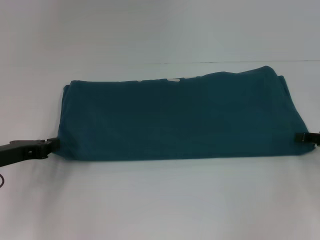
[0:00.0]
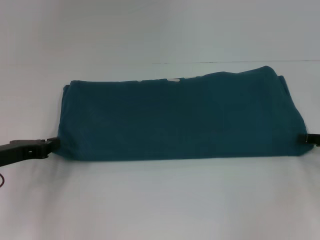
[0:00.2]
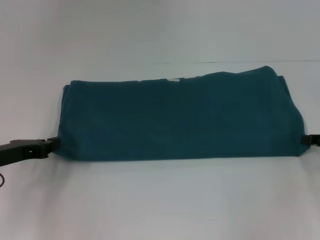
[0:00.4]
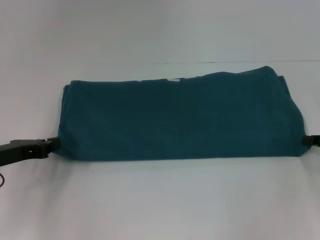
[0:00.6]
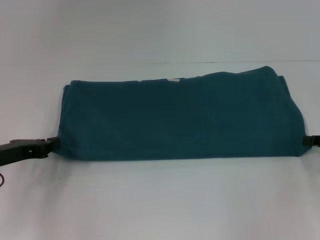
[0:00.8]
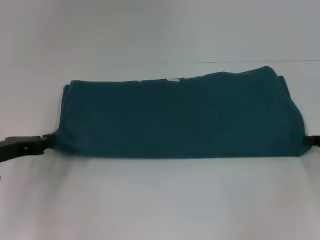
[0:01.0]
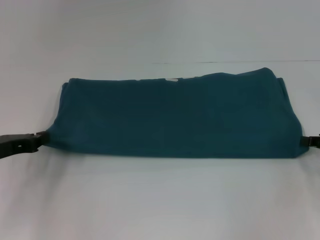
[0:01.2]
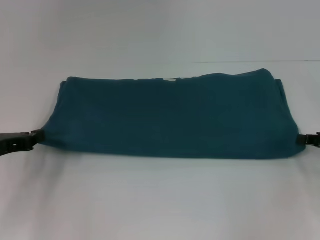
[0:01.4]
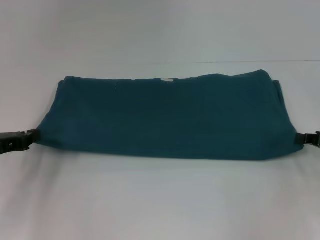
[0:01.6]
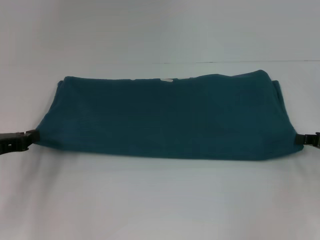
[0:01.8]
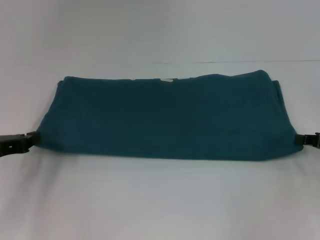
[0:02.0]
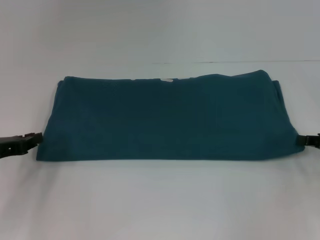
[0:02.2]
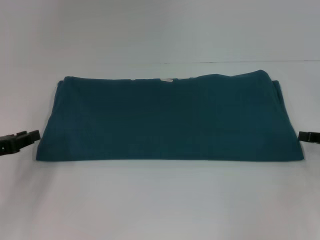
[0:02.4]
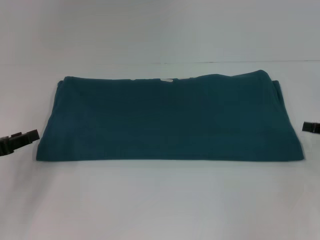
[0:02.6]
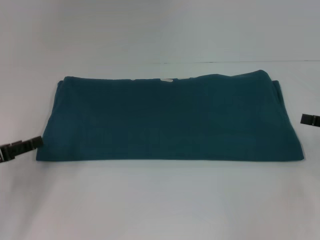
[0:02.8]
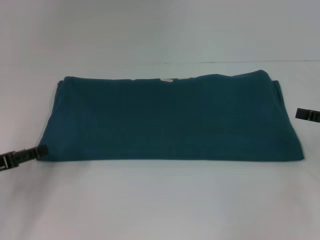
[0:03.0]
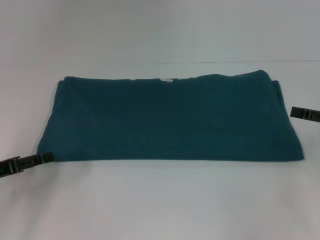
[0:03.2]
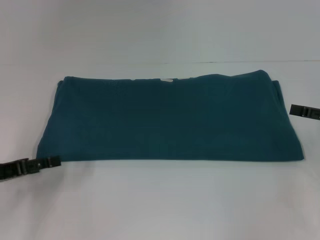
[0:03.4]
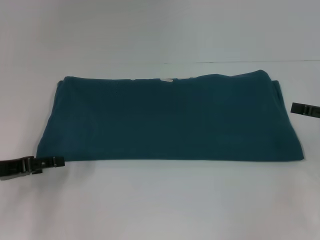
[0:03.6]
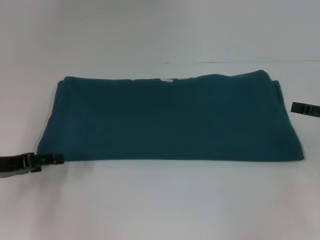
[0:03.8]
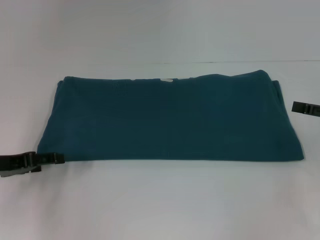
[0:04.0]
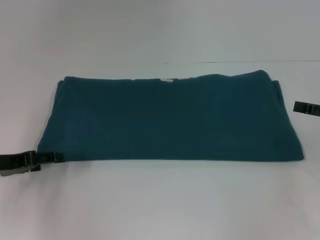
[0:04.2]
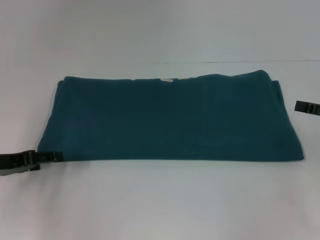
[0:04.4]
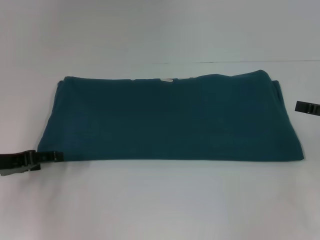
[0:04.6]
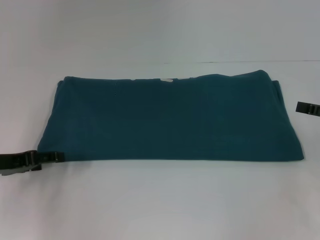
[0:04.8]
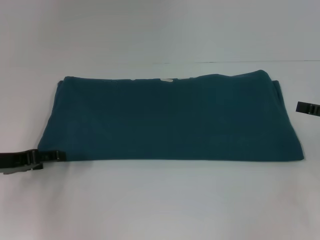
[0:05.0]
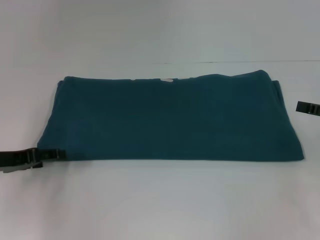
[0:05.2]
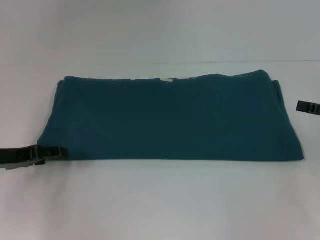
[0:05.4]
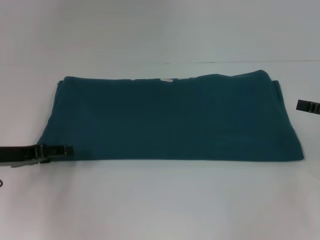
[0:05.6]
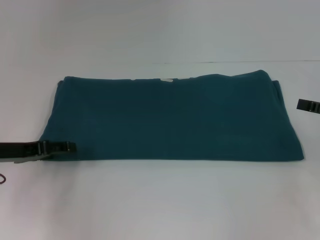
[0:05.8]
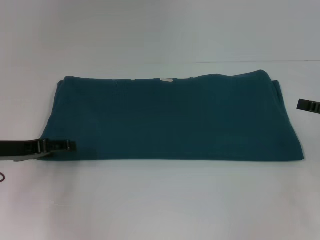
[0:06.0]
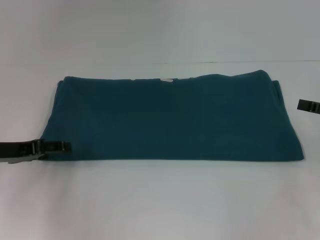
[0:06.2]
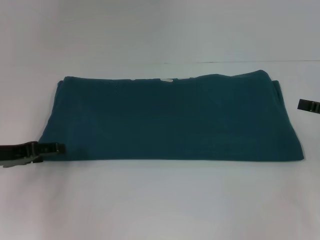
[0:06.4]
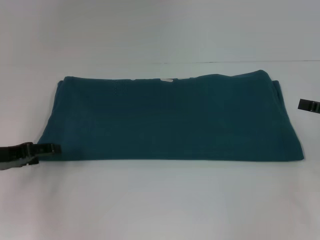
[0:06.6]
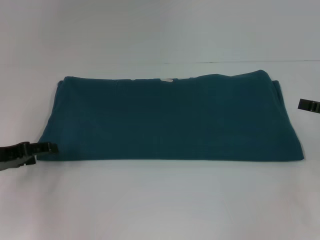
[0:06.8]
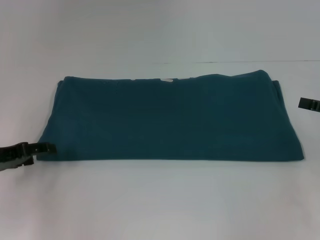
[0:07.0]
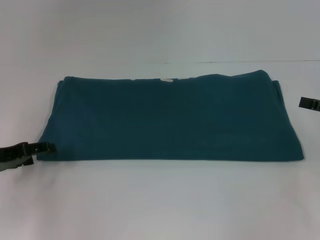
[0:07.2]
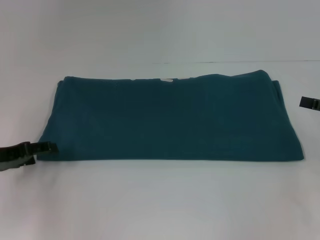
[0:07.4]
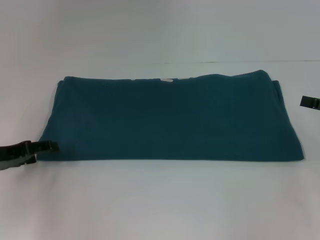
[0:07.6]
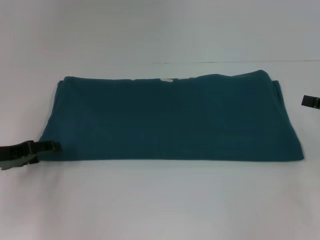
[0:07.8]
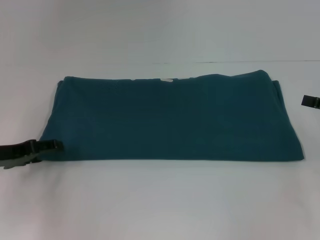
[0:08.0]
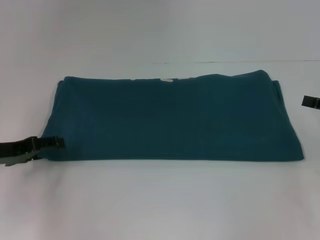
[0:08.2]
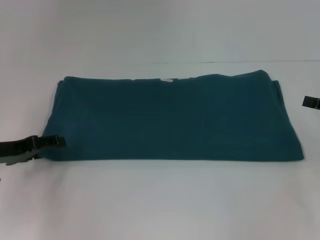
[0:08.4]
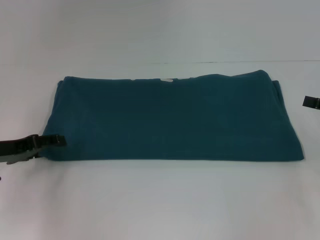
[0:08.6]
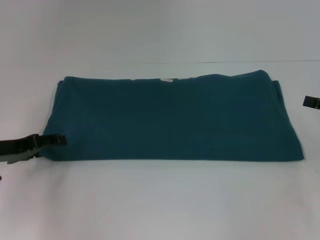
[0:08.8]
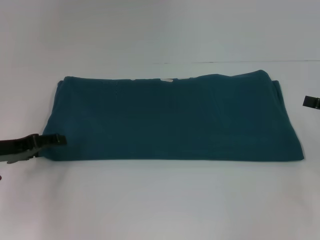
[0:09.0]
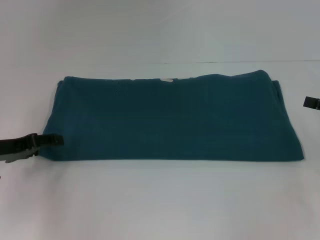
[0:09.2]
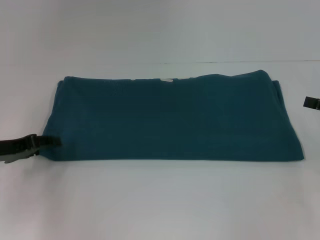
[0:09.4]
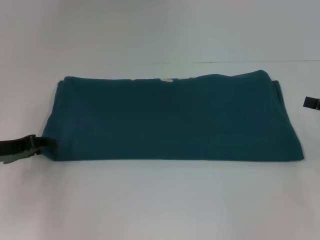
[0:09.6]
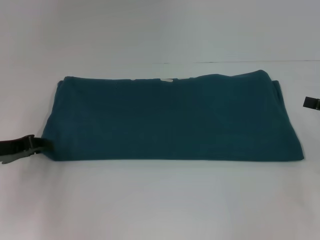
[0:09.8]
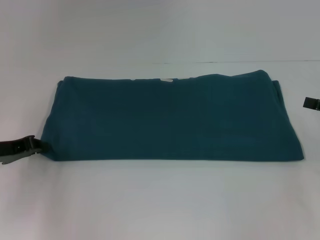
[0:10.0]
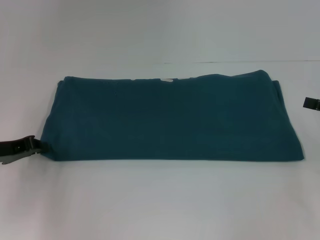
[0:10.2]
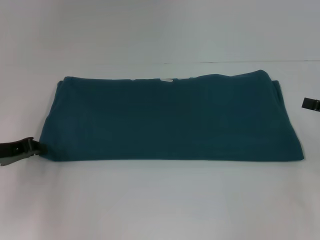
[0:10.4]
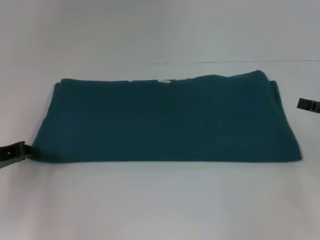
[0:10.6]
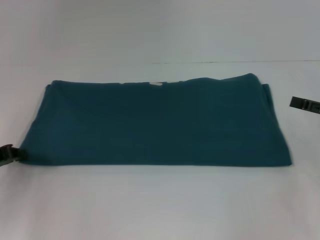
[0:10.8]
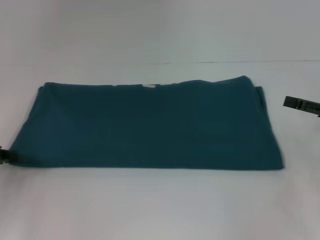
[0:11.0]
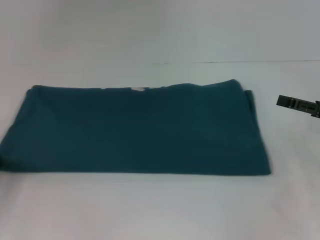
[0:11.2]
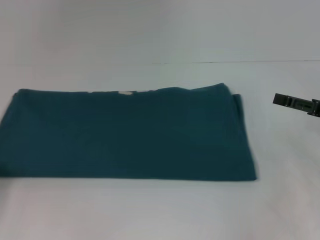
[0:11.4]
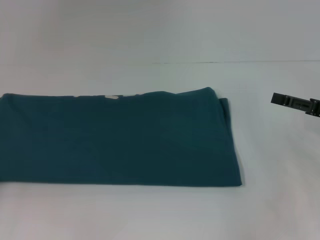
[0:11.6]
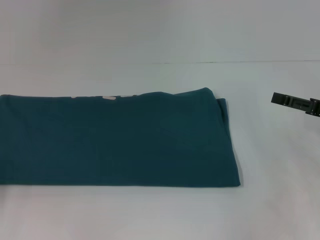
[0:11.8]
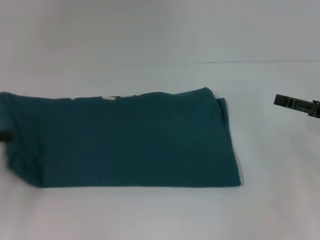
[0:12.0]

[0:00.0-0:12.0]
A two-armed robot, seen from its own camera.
0:00.0 to 0:01.6: The right gripper closes its fingers.
0:01.6 to 0:03.0: The right gripper opens its fingers, while the left gripper opens up.
0:04.4 to 0:07.6: The grippers move only a little.
0:07.6 to 0:09.0: The two grippers keep their place.
0:09.0 to 0:10.4: The left gripper closes up.

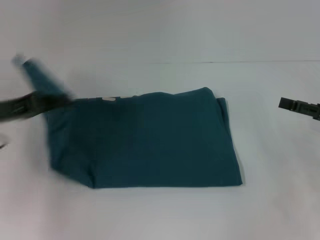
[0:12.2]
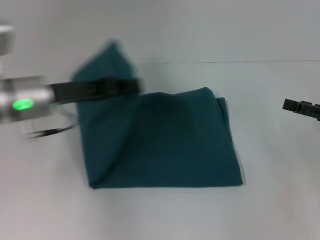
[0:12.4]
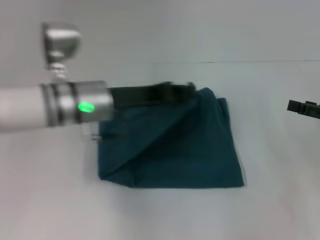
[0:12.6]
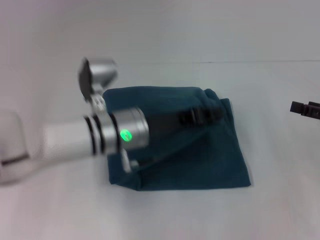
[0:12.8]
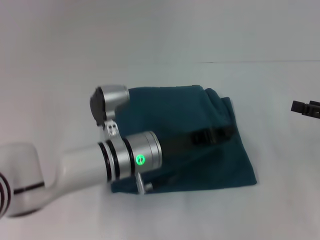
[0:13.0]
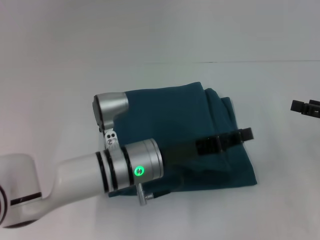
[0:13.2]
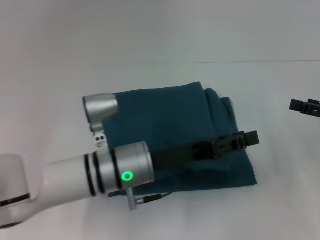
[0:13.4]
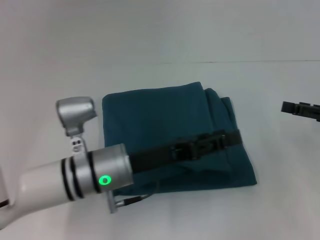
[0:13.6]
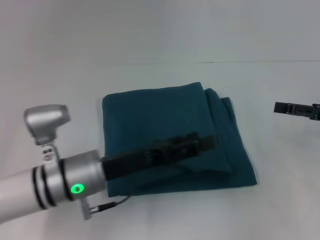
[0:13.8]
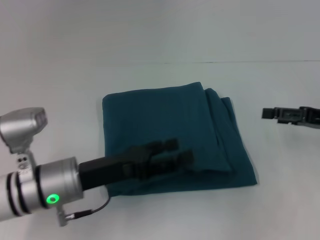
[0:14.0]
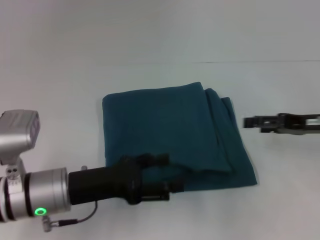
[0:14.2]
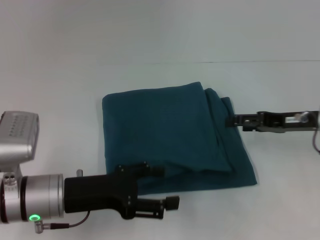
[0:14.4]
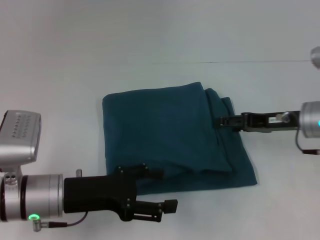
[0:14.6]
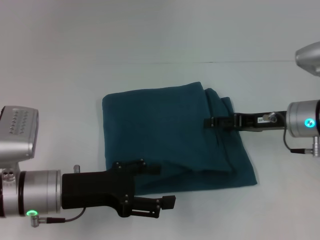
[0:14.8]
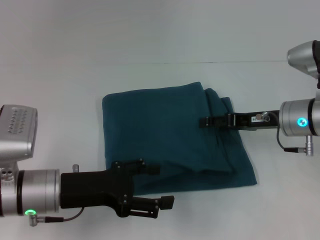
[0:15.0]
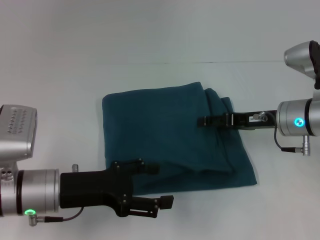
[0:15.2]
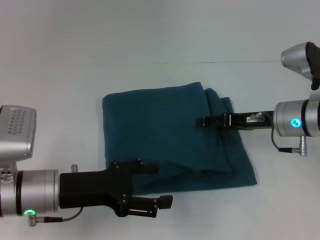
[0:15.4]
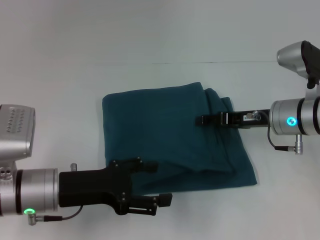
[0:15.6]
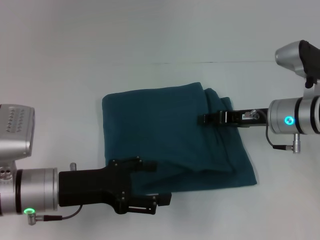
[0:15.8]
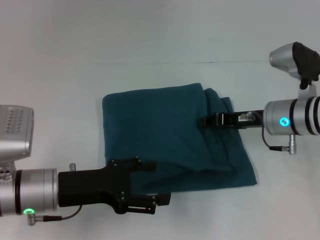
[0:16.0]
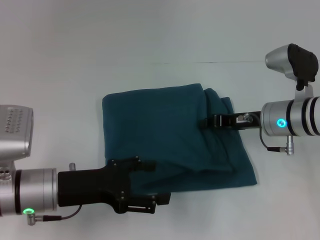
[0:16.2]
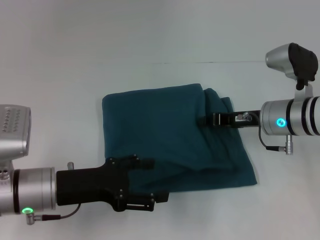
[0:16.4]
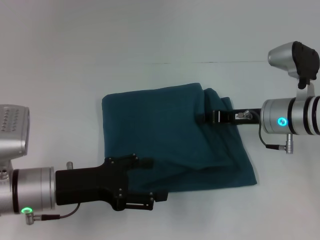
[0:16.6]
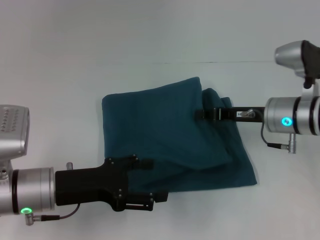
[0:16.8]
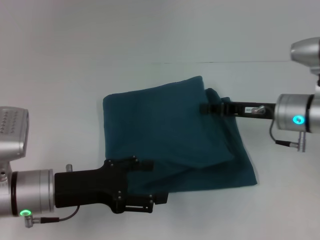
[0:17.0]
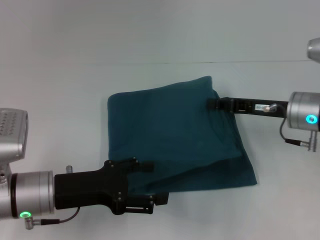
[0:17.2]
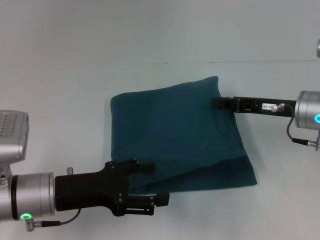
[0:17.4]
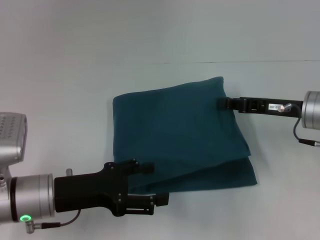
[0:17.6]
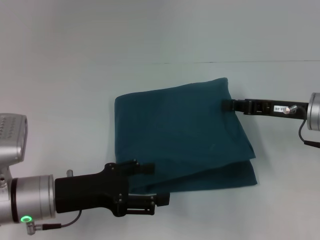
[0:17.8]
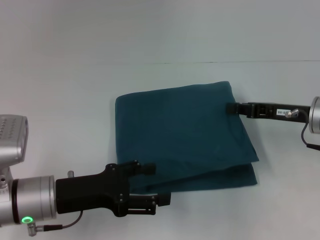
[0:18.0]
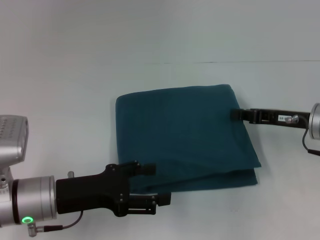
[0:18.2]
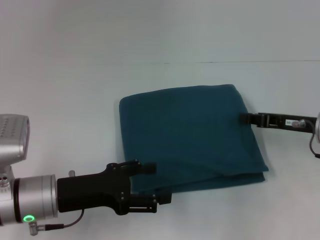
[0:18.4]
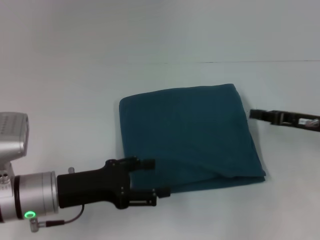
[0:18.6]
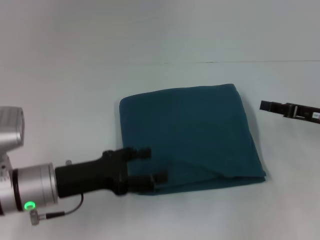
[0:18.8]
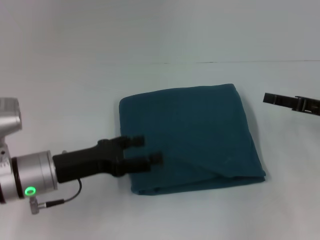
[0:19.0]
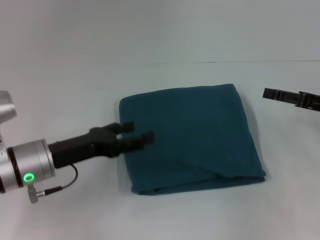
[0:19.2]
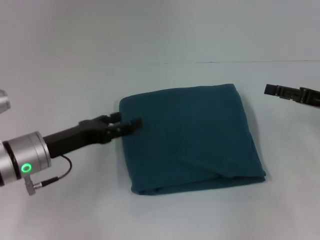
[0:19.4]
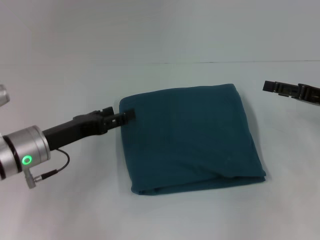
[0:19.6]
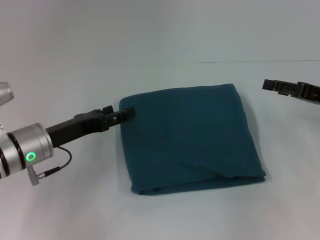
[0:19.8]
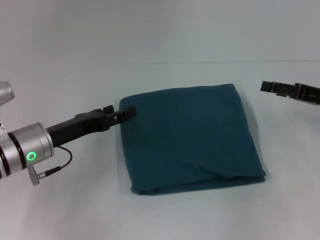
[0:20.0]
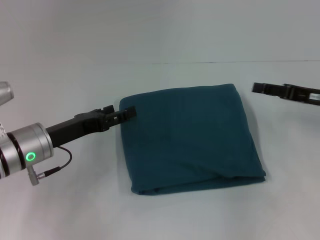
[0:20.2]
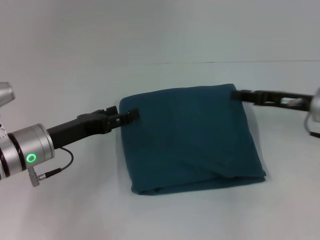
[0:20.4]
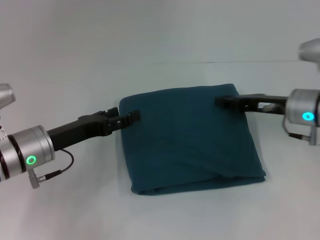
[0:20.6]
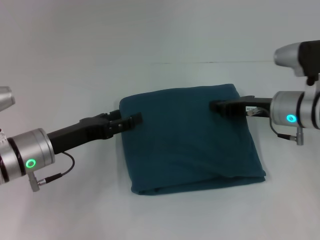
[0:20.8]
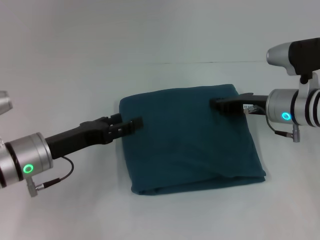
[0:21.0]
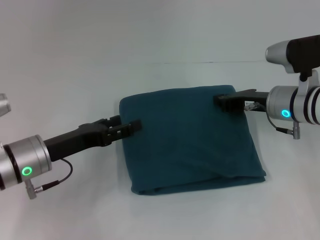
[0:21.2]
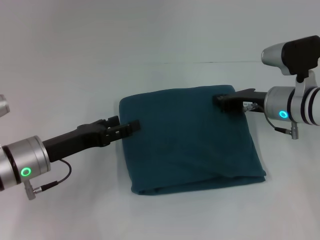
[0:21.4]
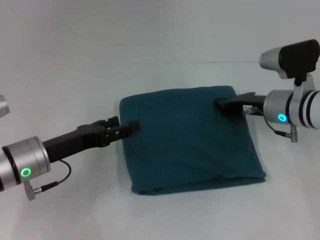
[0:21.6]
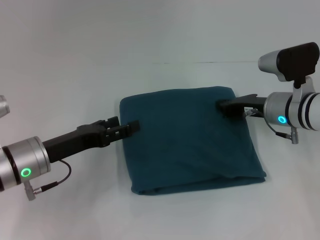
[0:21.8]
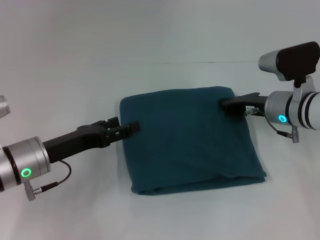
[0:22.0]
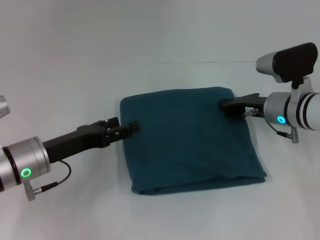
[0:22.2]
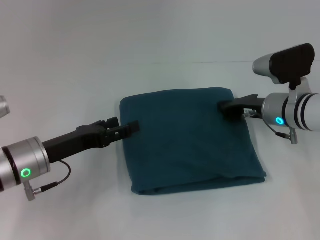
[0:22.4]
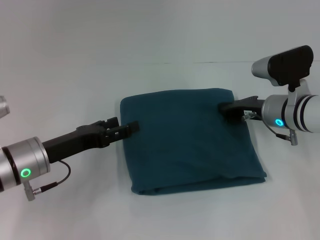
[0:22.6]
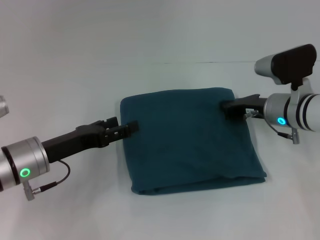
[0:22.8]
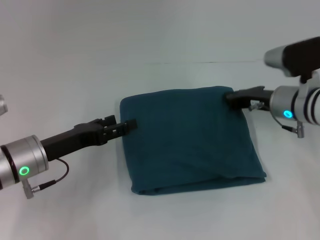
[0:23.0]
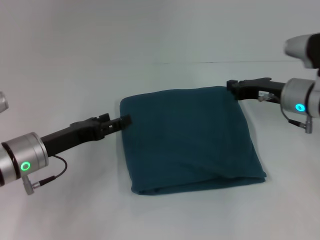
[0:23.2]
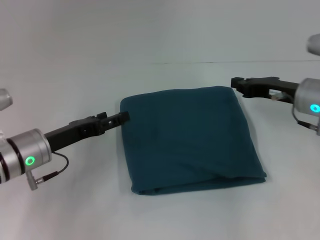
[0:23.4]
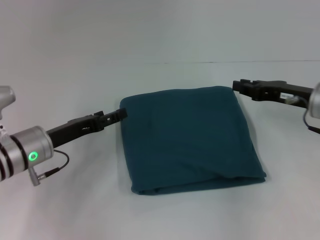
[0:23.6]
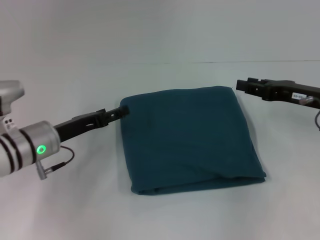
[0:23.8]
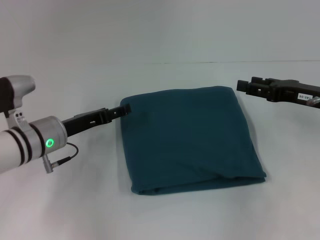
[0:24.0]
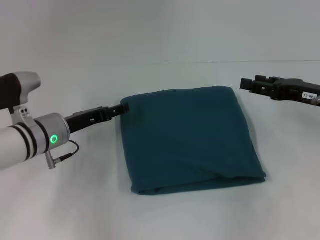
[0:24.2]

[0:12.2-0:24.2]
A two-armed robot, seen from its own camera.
0:12.2 to 0:13.8: The left gripper is displaced to the right and downward by about 15 cm, and opens up.
0:13.8 to 0:15.2: The right gripper moves to the left, some 15 cm, while the left gripper heads to the left, covering roughly 5 cm.
0:15.2 to 0:16.6: The right gripper closes up.
0:16.6 to 0:18.2: The right gripper moves to the right, about 5 cm.
0:18.2 to 0:19.8: The right gripper heads to the right, covering roughly 5 cm, and opens its fingers; the left gripper shifts some 5 cm forward.
0:19.8 to 0:21.2: The right gripper goes roughly 10 cm to the left, and closes.
0:21.2 to 0:22.6: The grippers make only small movements.
0:22.6 to 0:24.2: The right gripper is displaced to the right and upward by about 10 cm, and opens up. Meanwhile the left gripper shifts about 5 cm forward.
